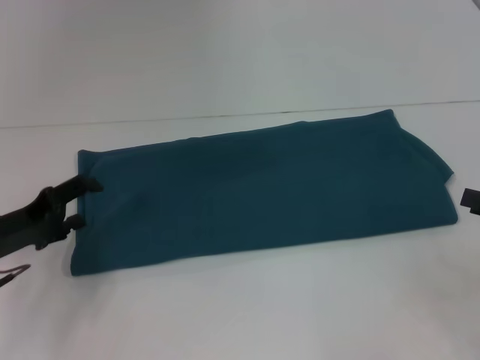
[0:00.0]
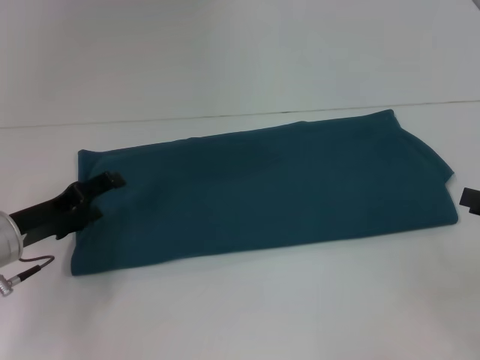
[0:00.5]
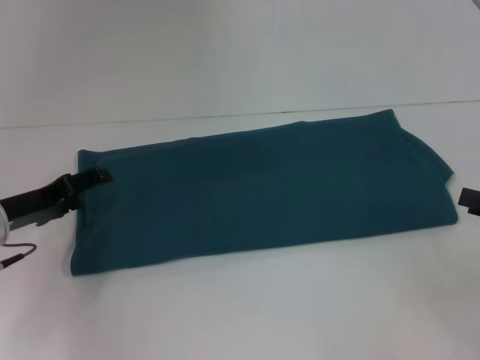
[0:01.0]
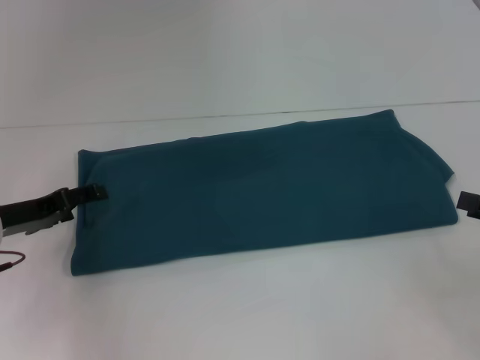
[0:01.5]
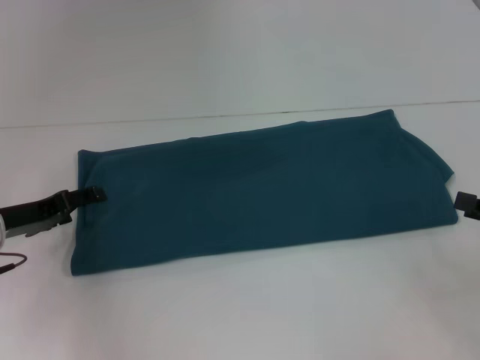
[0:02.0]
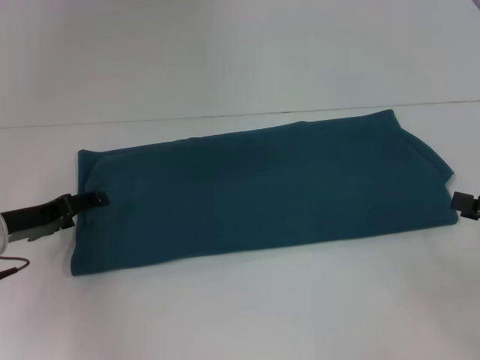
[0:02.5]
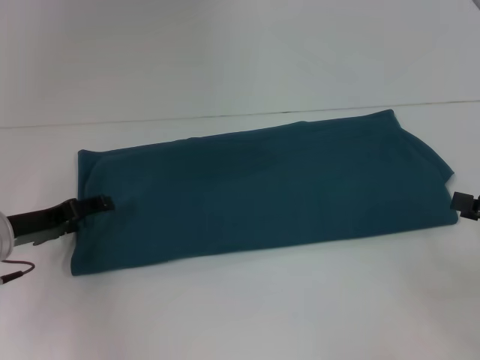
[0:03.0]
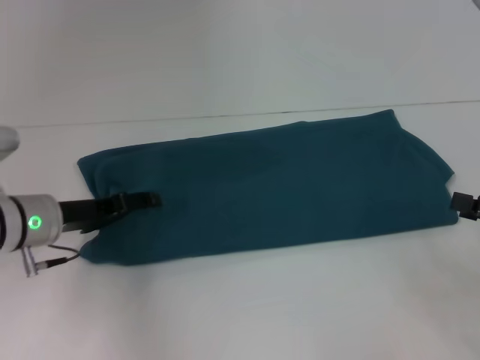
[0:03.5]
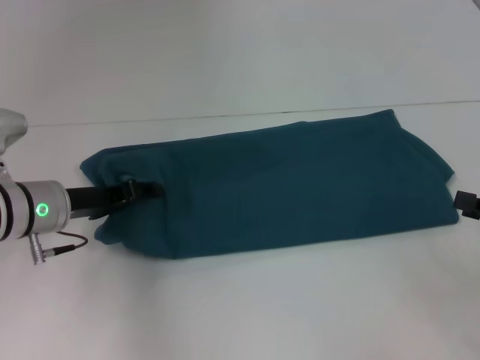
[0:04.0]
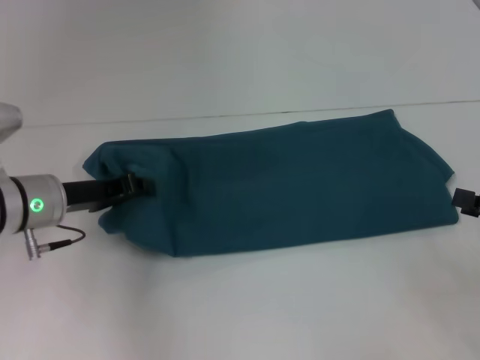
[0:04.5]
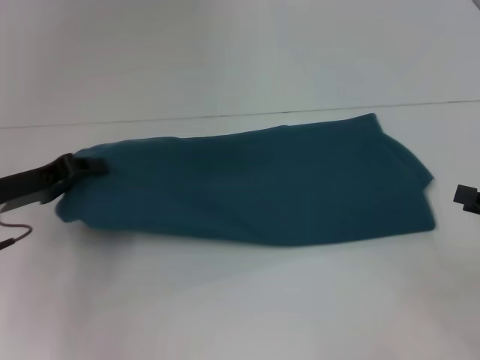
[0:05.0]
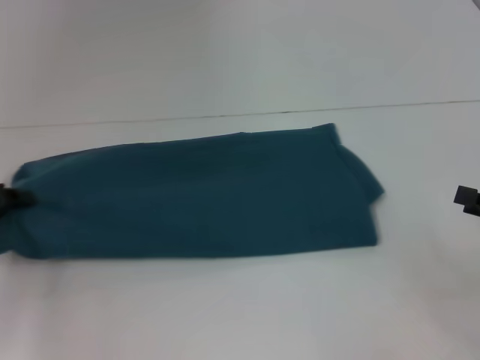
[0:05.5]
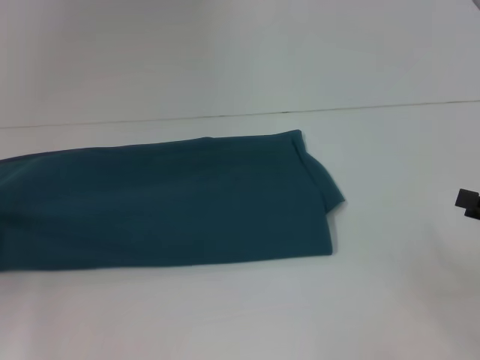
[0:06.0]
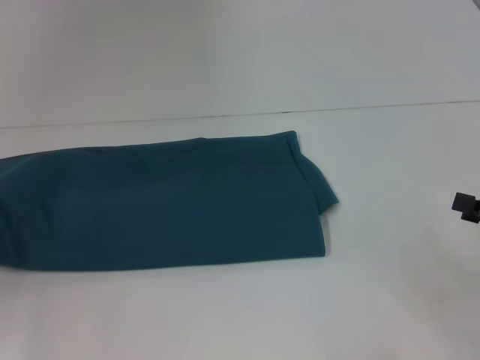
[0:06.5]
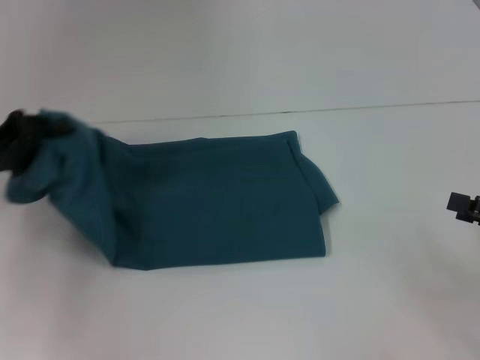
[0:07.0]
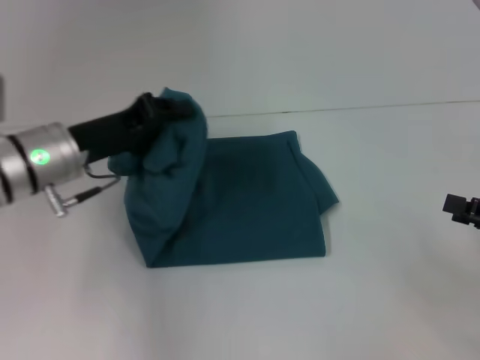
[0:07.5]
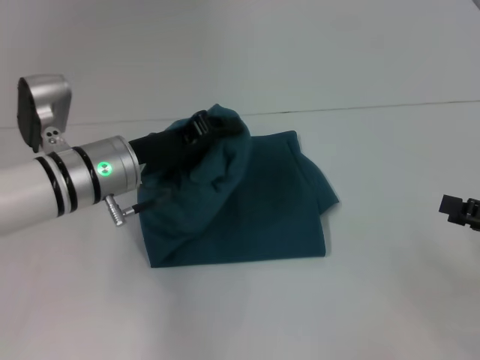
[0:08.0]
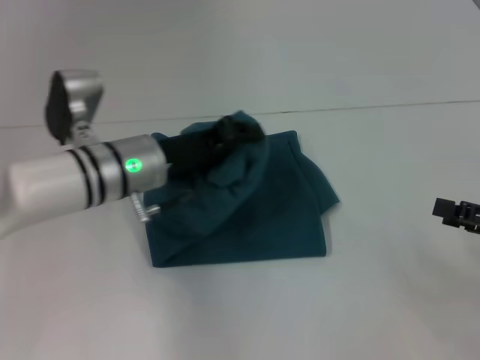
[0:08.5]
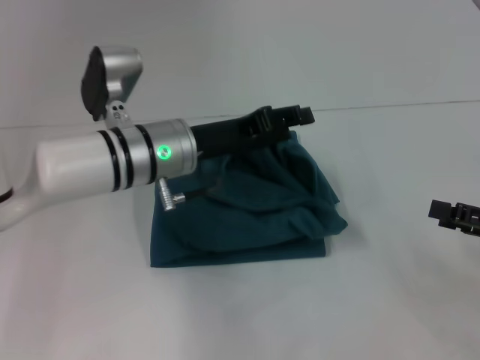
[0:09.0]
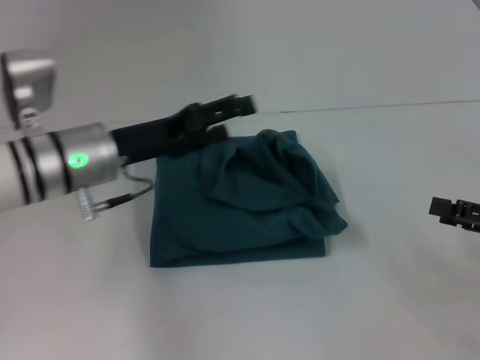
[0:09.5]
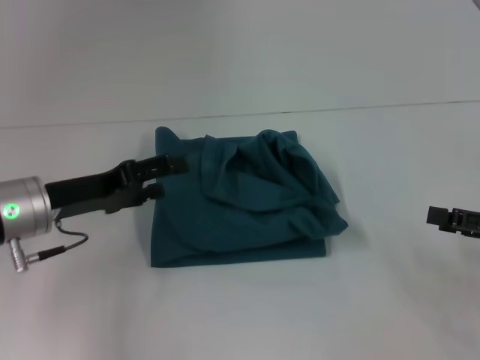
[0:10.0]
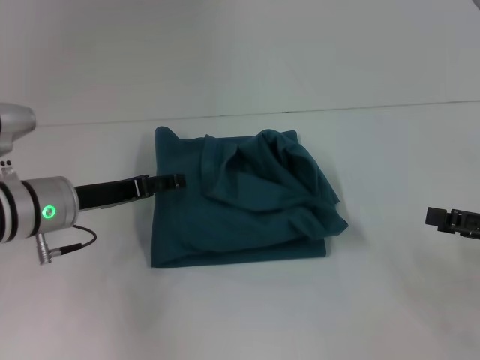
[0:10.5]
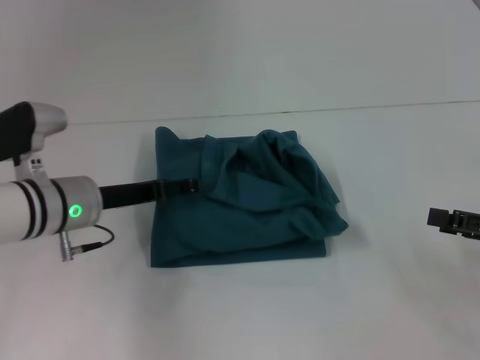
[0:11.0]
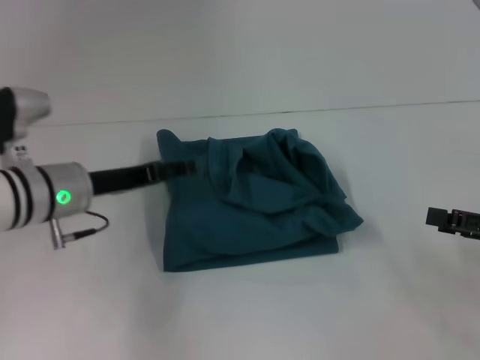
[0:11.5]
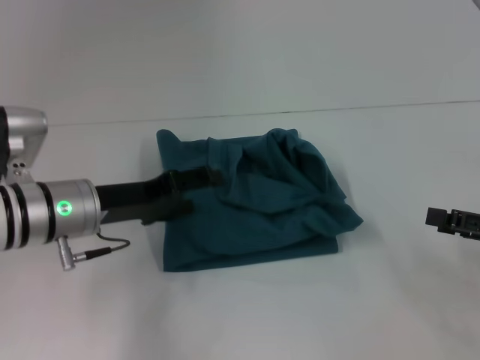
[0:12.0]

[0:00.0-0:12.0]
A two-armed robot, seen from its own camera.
Step, 0:00.0 to 0:09.5: Fold the clothes to the left.
0:02.0 to 0:04.0: The left gripper is displaced to the right by about 5 cm.
0:04.0 to 0:06.0: The left gripper is displaced to the left by approximately 15 cm, and closes up.
0:06.0 to 0:08.0: The left gripper heads to the right, covering roughly 25 cm.
0:08.0 to 0:10.0: The left gripper goes approximately 10 cm to the left, and opens up.

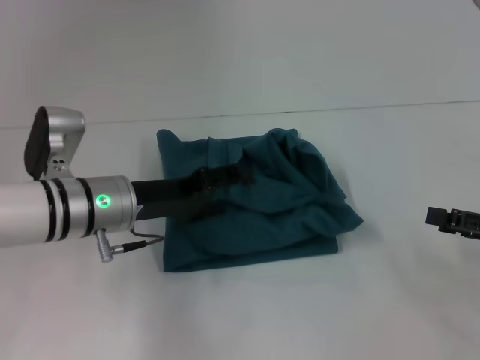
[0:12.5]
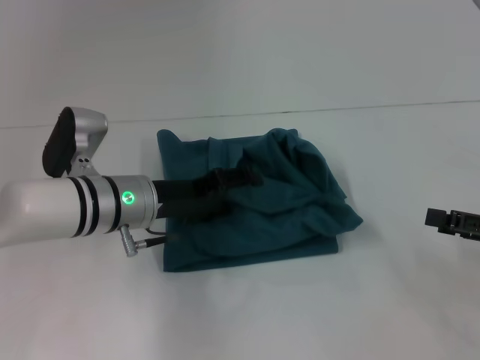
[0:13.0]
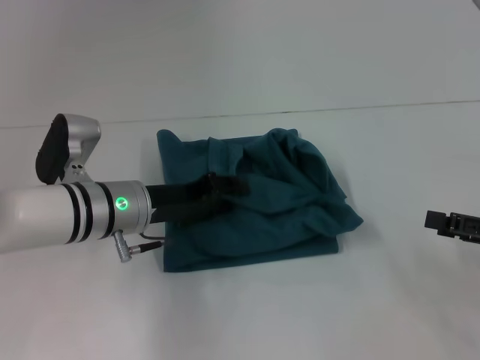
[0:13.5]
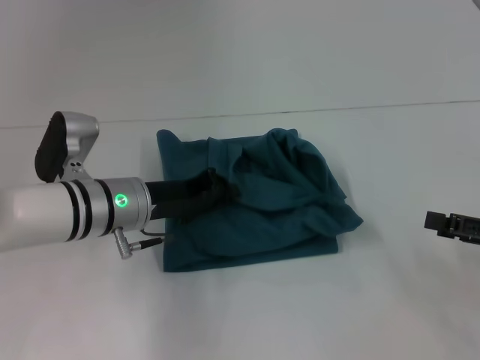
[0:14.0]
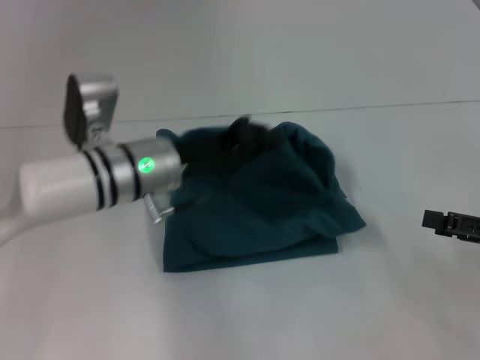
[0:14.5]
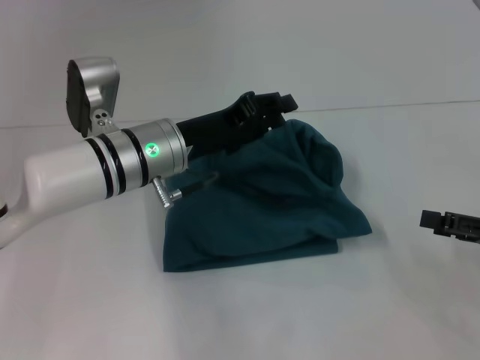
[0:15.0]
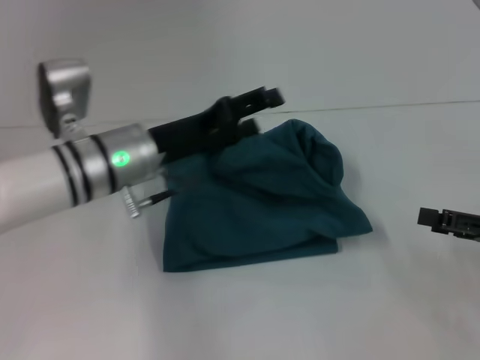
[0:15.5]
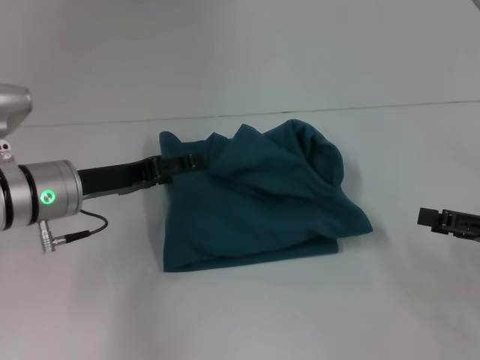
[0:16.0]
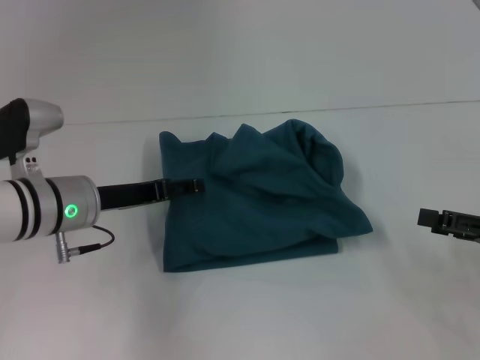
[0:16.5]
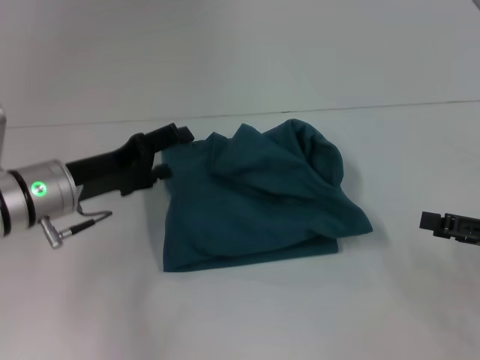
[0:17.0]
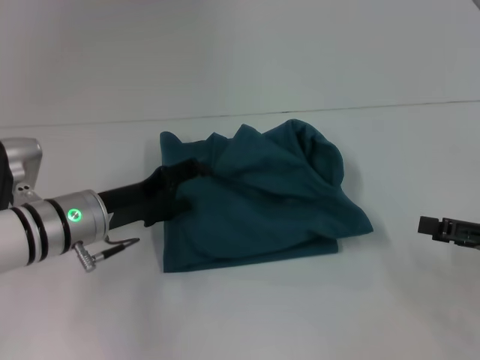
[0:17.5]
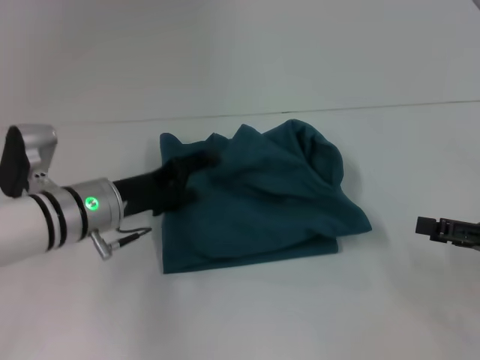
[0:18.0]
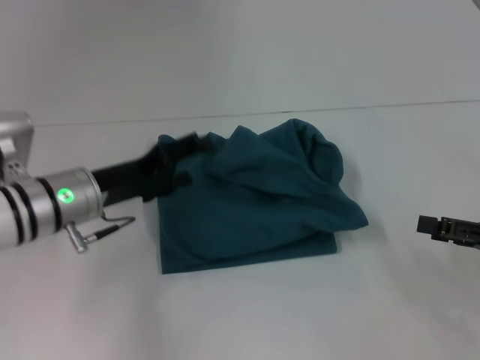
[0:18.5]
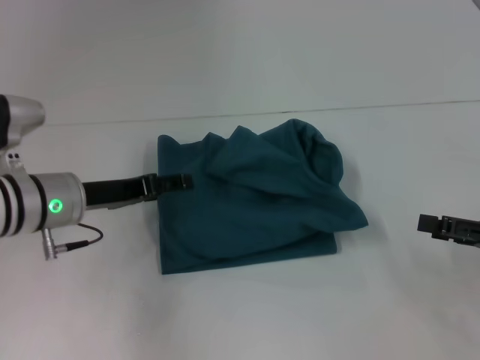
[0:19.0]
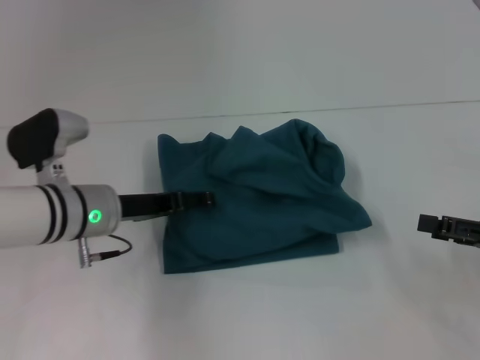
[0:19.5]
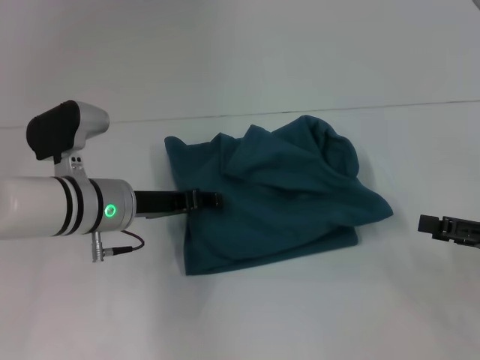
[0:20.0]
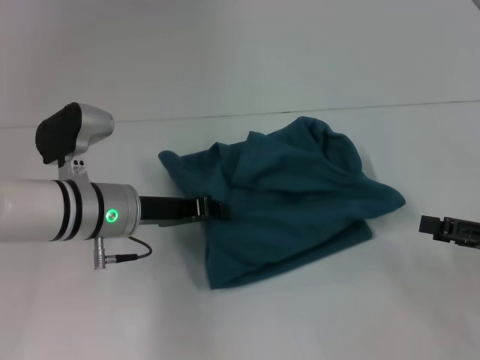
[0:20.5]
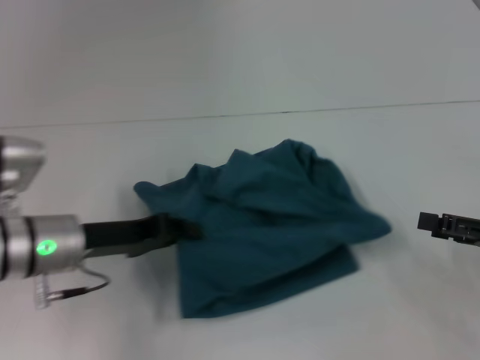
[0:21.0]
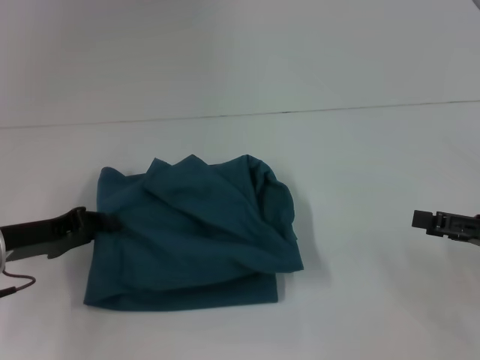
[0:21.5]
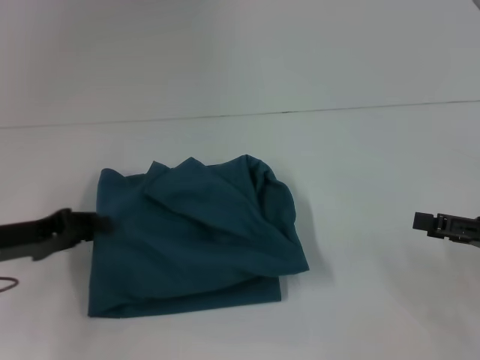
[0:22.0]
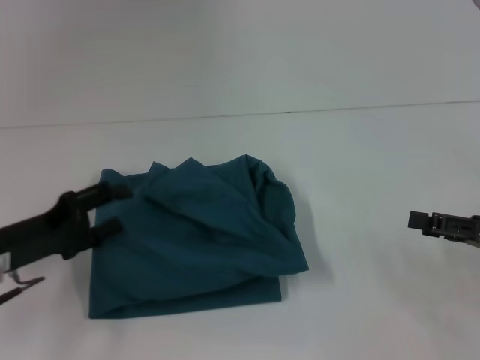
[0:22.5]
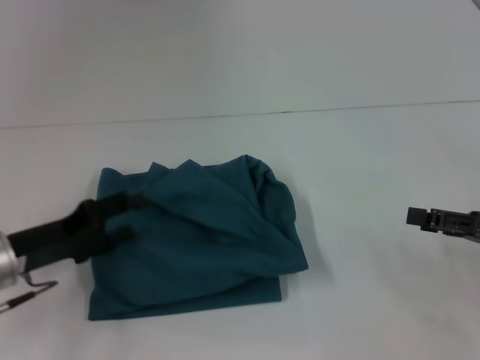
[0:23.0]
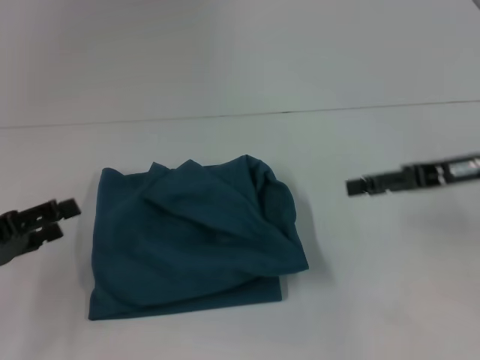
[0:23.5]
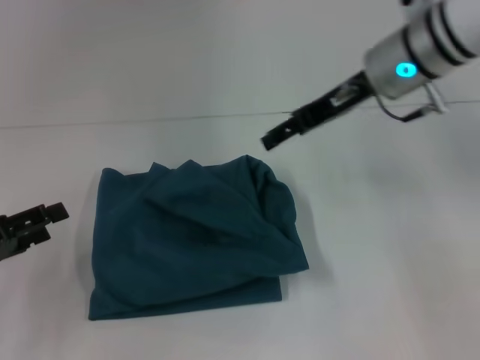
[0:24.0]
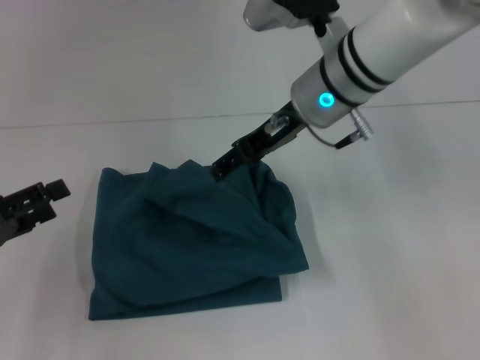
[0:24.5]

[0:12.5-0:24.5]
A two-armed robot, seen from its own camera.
0:12.5 to 0:14.5: The left gripper shifts by roughly 5 cm, and closes up.
0:14.5 to 0:16.5: The left gripper goes approximately 10 cm to the left, and opens up.
0:18.5 to 0:20.5: The left gripper closes its fingers.
0:20.5 to 0:22.5: The left gripper travels to the left and backward by roughly 15 cm, and opens up.
0:22.5 to 0:24.5: The left gripper moves to the left, some 5 cm; the right gripper travels to the left, forward and upward by about 30 cm.

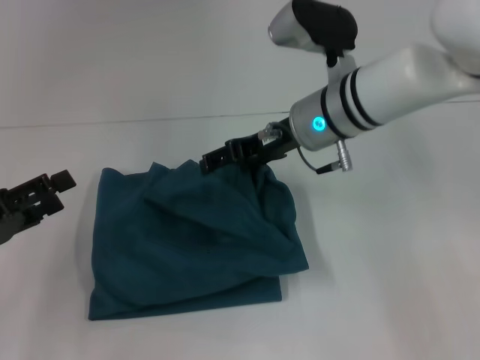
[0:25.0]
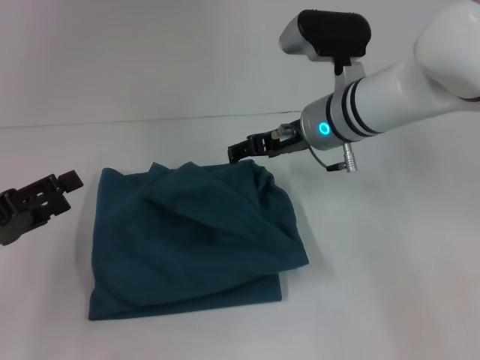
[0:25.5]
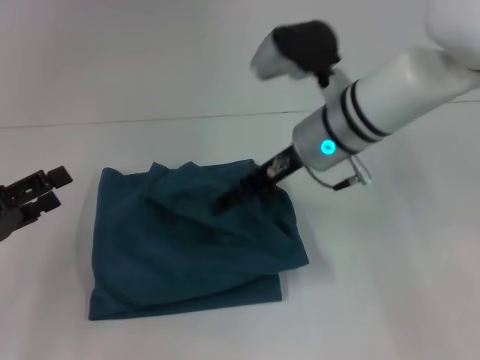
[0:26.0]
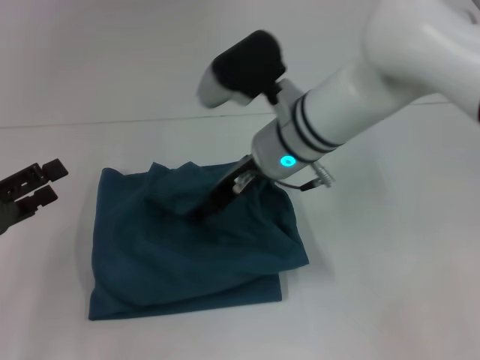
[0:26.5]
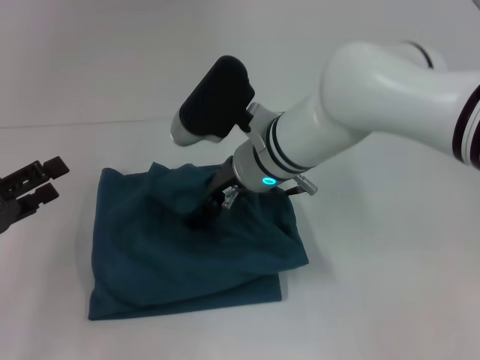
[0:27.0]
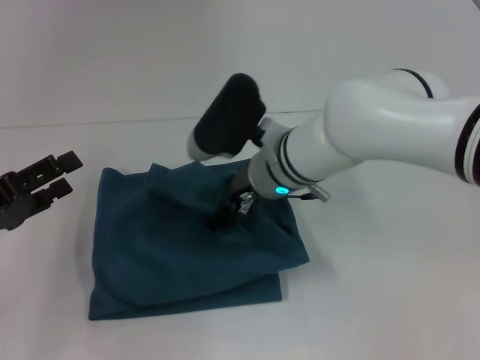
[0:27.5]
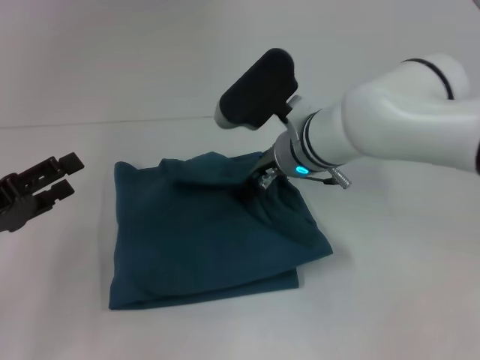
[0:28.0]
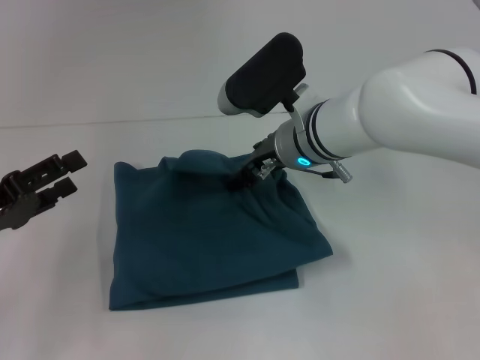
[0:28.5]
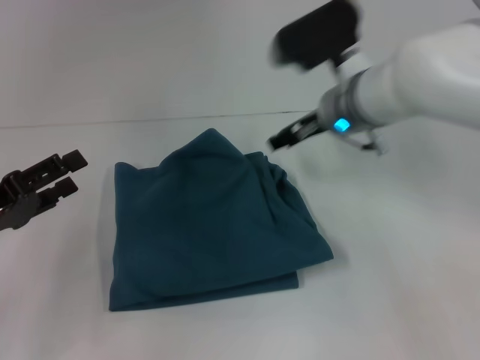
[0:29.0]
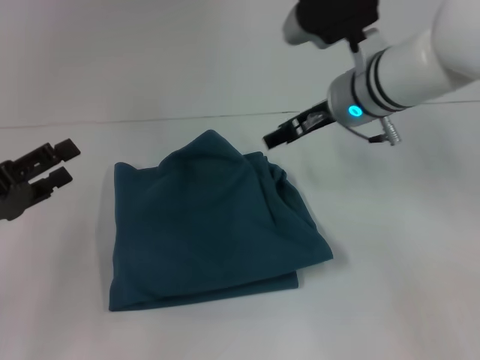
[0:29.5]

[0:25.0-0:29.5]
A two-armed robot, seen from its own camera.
0:25.0 to 0:27.0: The right gripper heads to the left, covering roughly 5 cm.
0:27.0 to 0:29.5: The right gripper shifts about 10 cm to the right.
